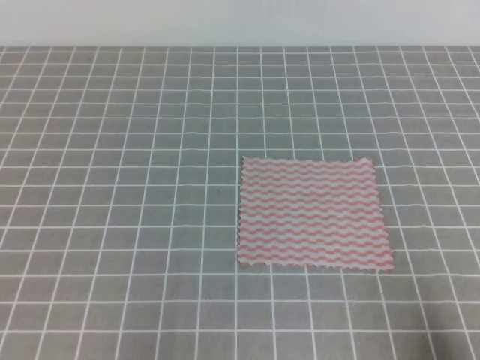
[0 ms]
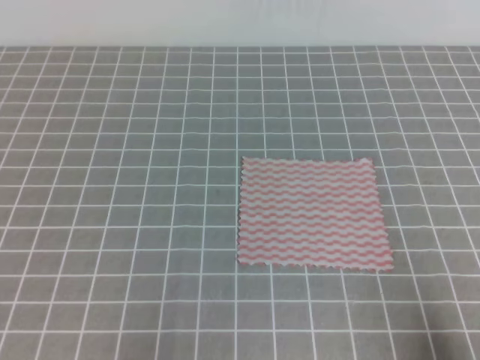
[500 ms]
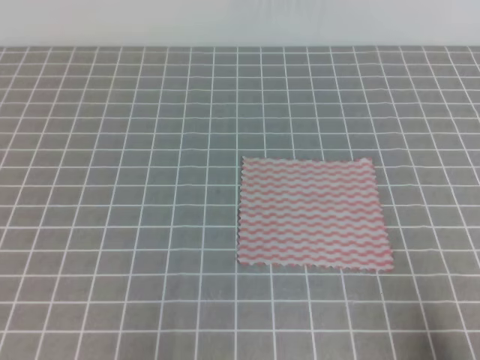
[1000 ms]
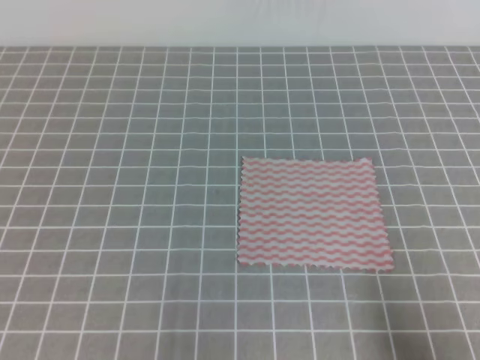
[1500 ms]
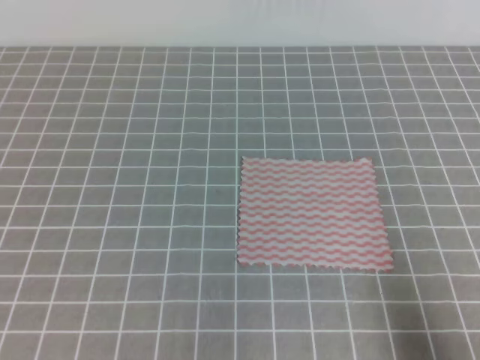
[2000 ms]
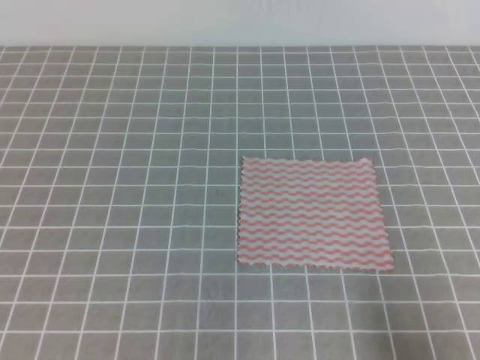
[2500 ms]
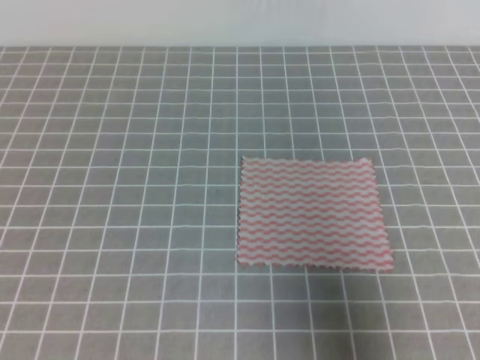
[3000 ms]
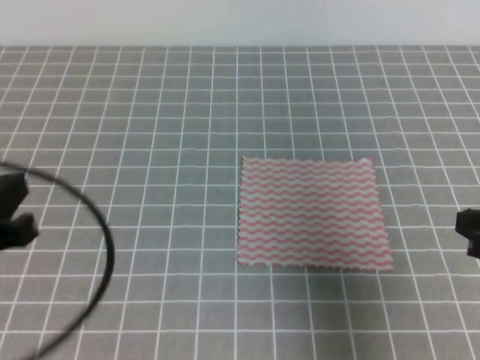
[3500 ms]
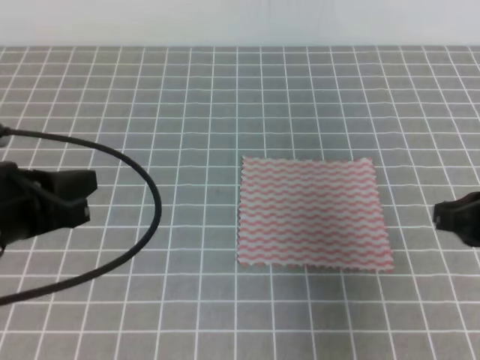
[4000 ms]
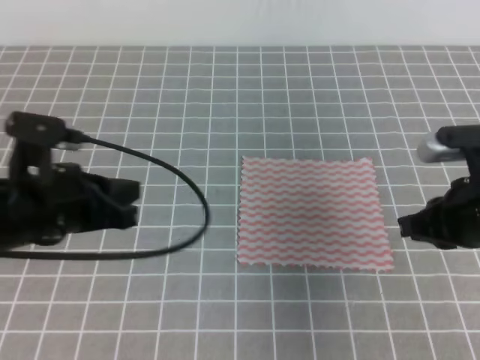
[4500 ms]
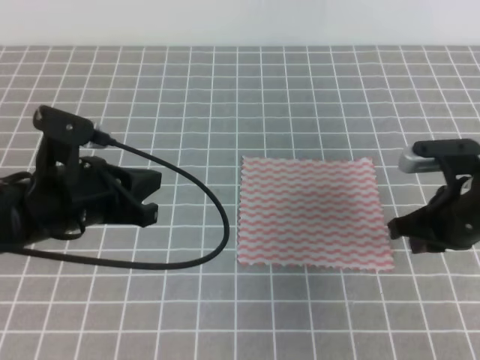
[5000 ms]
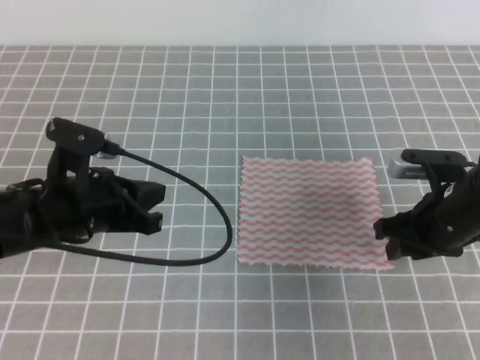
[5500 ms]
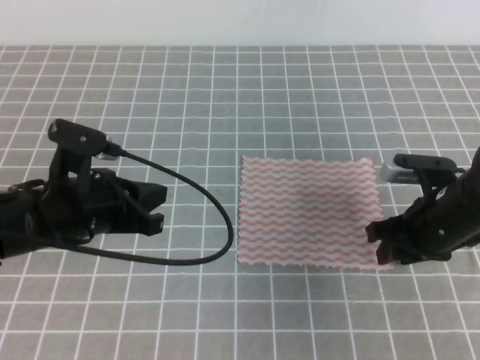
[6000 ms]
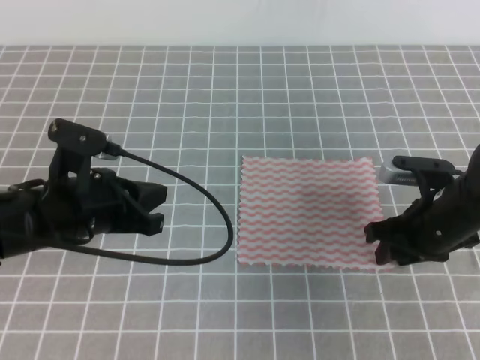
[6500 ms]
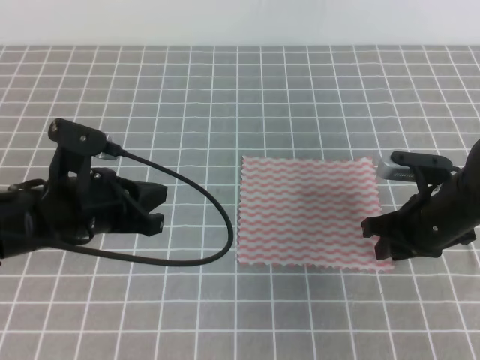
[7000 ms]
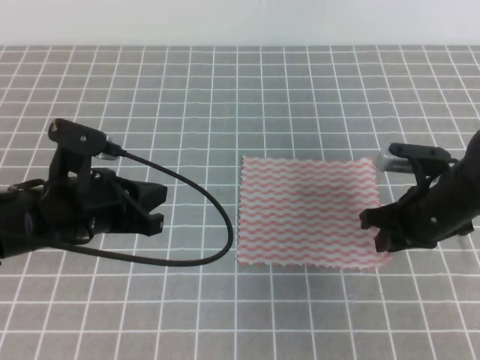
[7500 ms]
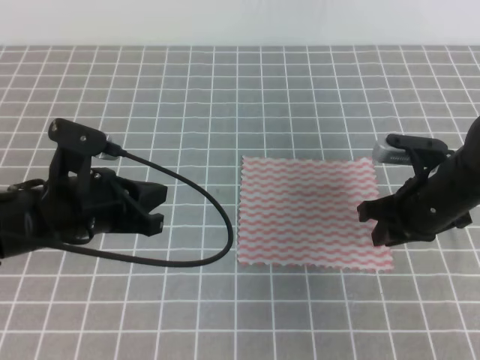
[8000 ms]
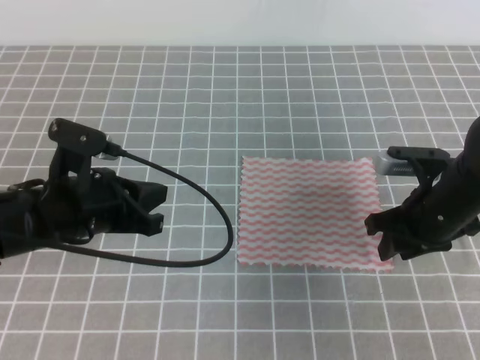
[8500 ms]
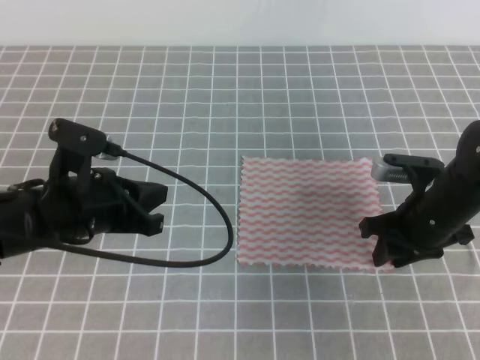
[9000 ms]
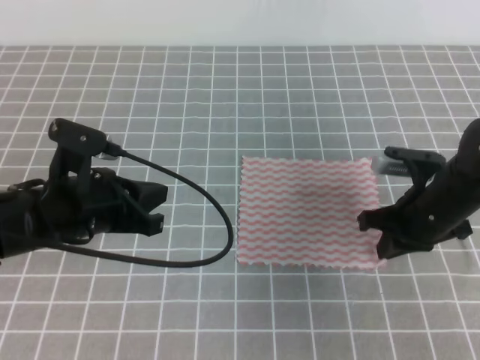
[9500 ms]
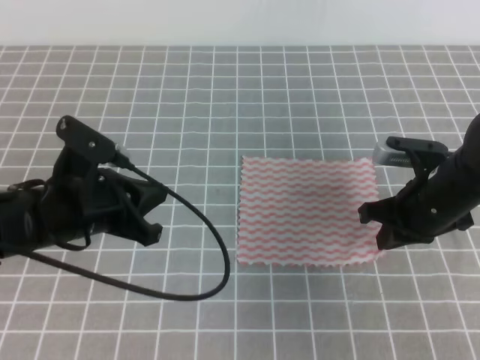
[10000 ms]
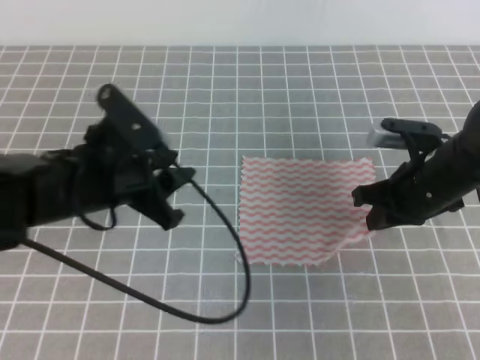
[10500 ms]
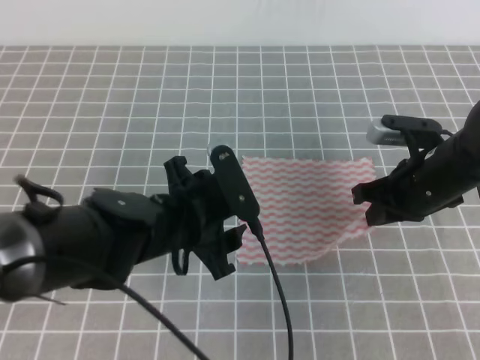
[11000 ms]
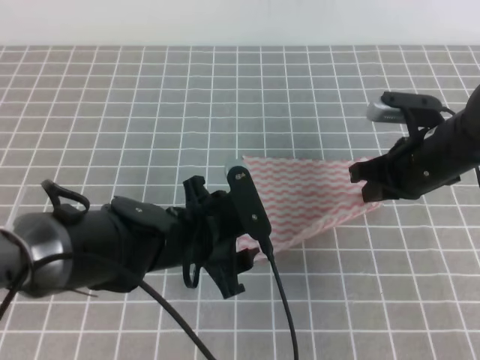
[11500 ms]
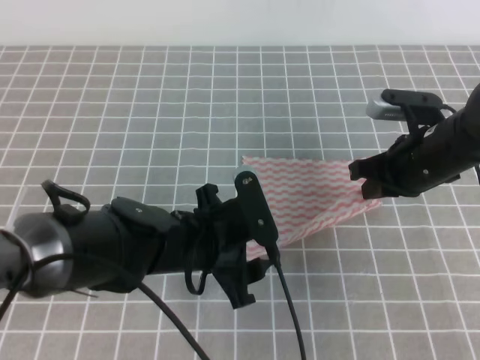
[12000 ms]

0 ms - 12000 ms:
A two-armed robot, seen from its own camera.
2000 ms - 4000 ms: The left gripper moves forward and upward, some 15 cm. Meanwhile the right gripper shifts some 15 cm forward.
4000 ms - 6000 ms: The right gripper is displaced forward and downward by roughly 10 cm, and opens. The left gripper shifts roughly 10 cm downward, forward and to the right.
6000 ms - 8000 ms: The right gripper closes.
8000 ms - 10000 ms: The right gripper closes up.
10000 ms - 12000 ms: The left gripper heads to the right, covering approximately 10 cm, and opens.

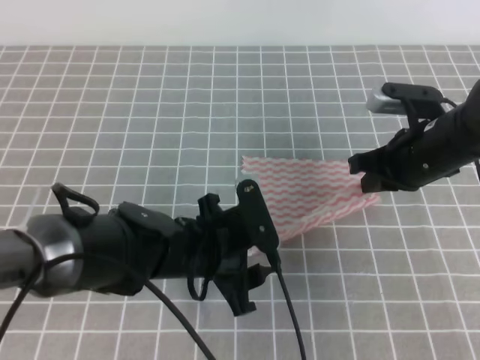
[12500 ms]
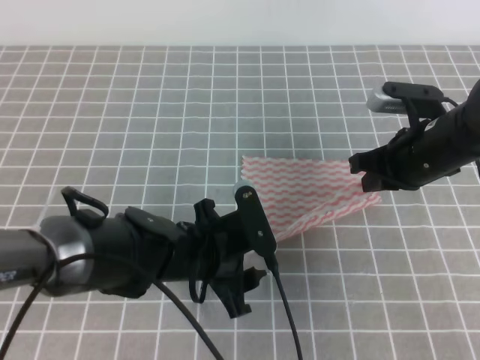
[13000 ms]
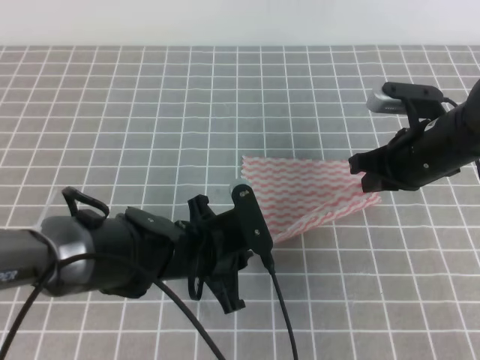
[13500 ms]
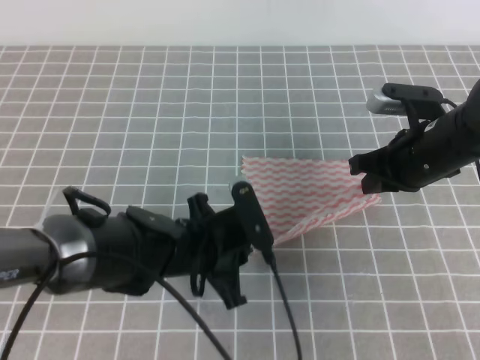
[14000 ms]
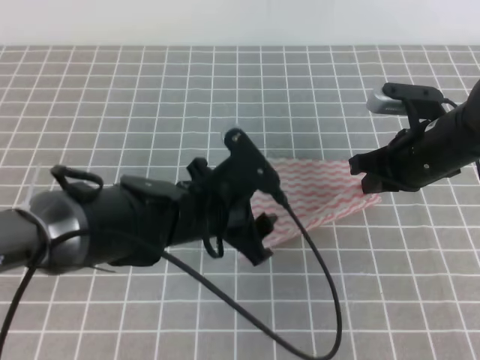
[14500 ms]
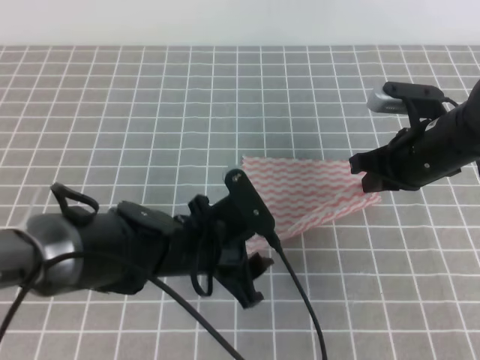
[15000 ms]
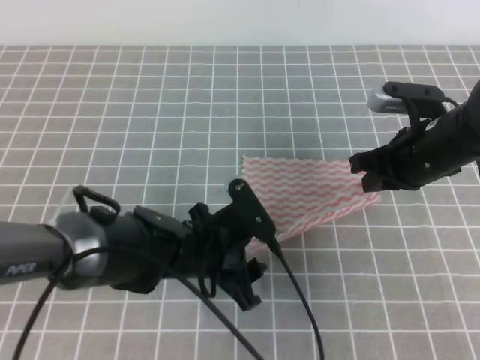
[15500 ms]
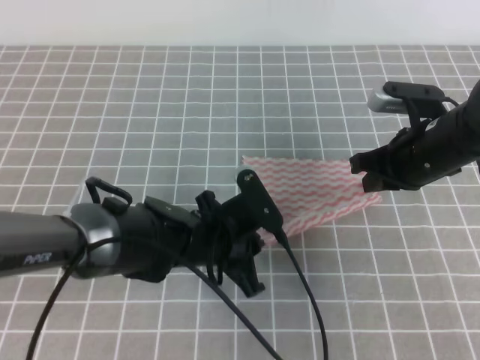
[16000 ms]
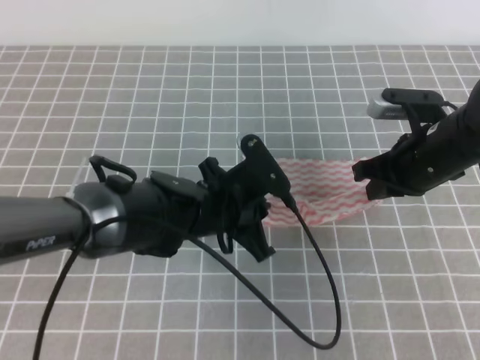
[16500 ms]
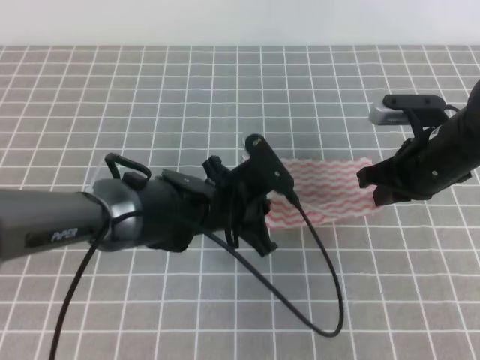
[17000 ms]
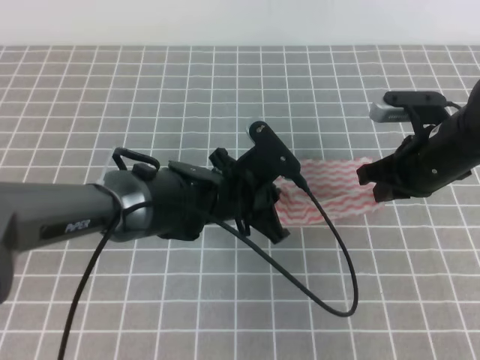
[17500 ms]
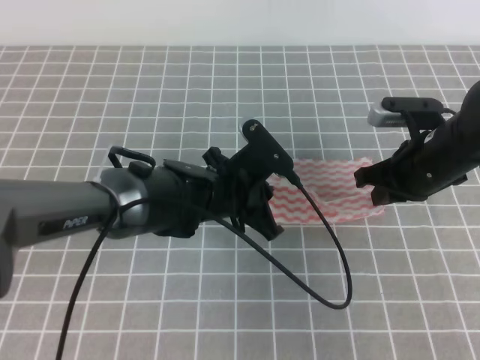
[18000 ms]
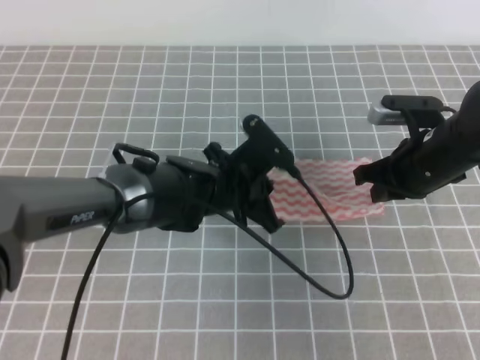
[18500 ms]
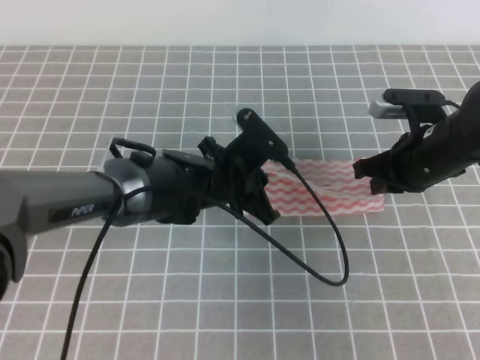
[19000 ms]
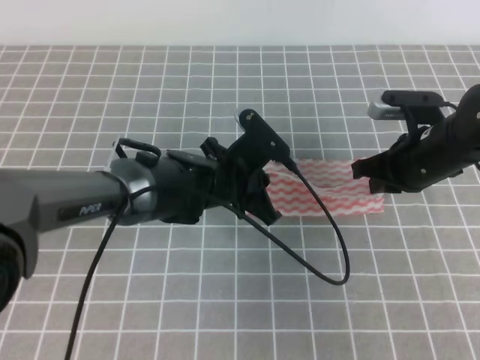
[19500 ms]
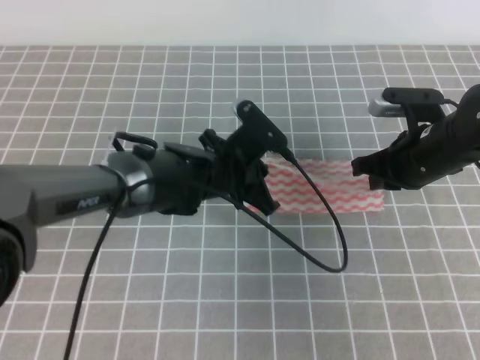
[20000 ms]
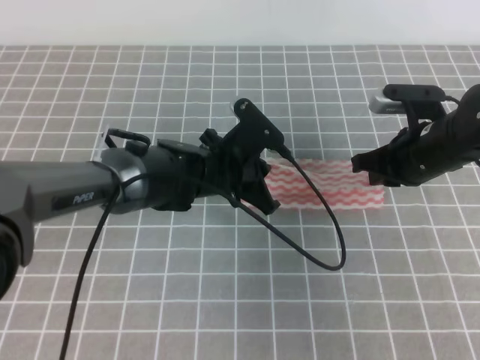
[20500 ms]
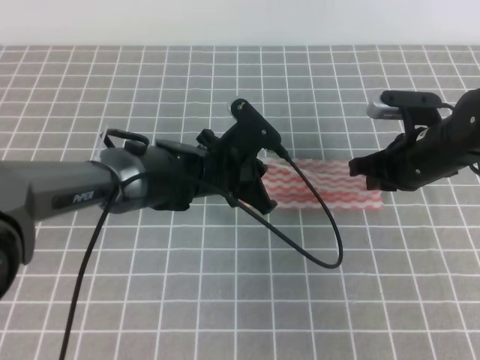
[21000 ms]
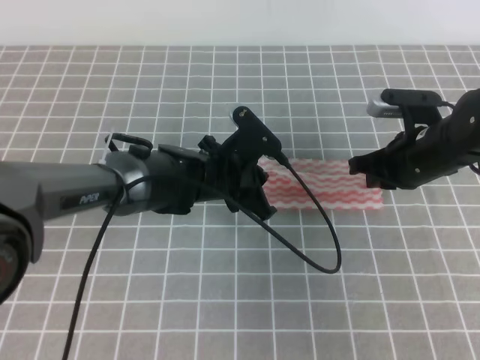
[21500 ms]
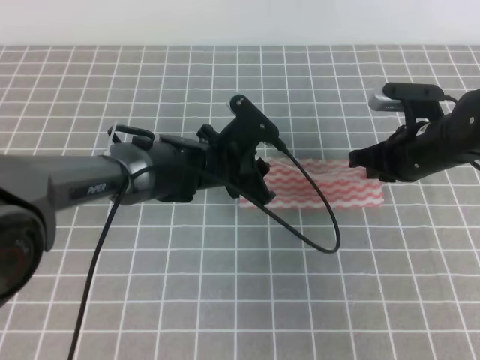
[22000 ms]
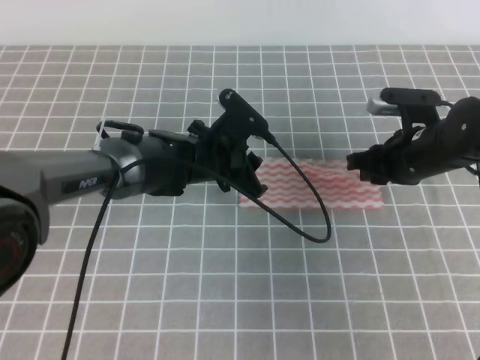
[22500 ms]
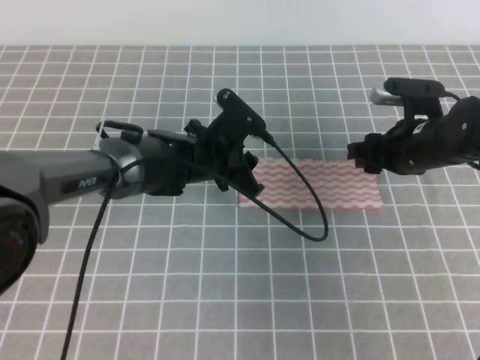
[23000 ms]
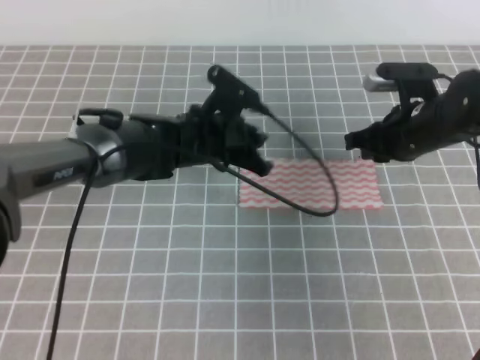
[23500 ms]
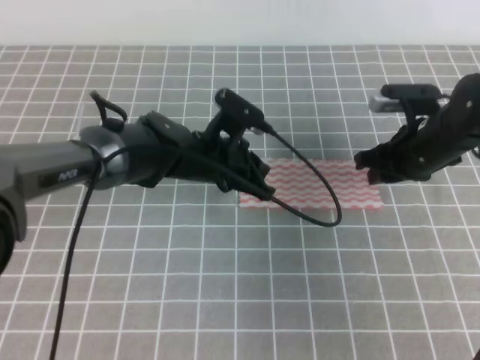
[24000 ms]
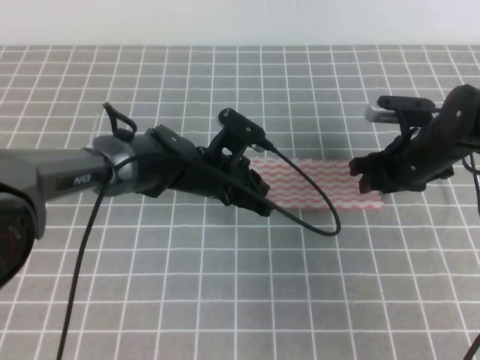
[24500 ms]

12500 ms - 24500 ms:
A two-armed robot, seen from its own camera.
Step, 14500 ms - 17500 ms: Fold the towel from right to left with the right gripper.
Step, 18000 ms - 19500 ms: Tidy up the towels.
12500 ms - 14500 ms: The left gripper closes and opens again.
14500 ms - 16500 ms: The left gripper closes up.
16500 ms - 18500 ms: There are only small adjustments of the grippers.
18500 ms - 20500 ms: There are only small adjustments of the grippers.
20500 ms - 22500 ms: The left gripper opens up. The right gripper opens.
22500 ms - 24500 ms: The left gripper closes its fingers. The right gripper opens its fingers.

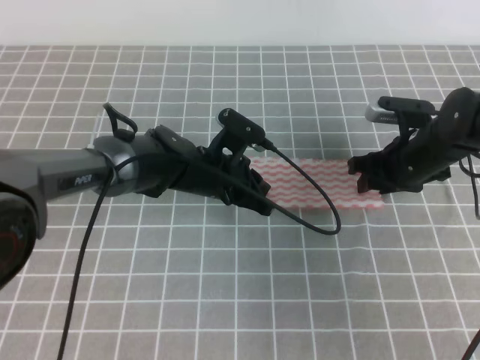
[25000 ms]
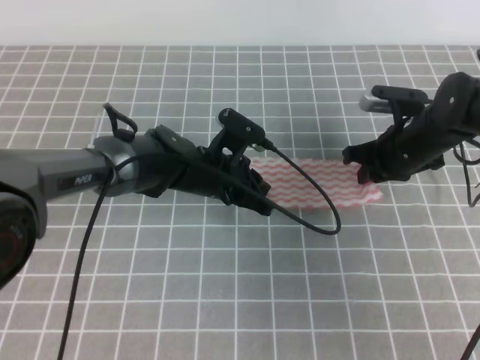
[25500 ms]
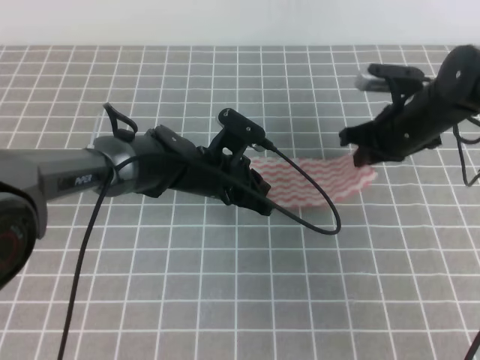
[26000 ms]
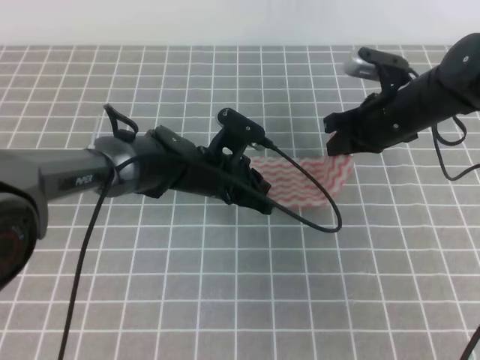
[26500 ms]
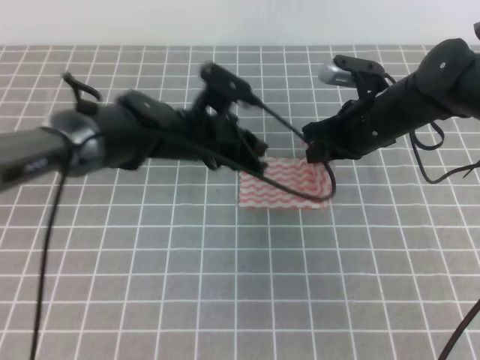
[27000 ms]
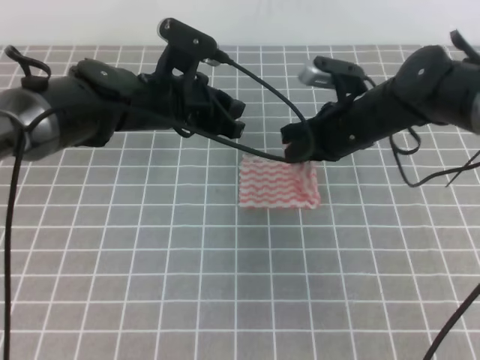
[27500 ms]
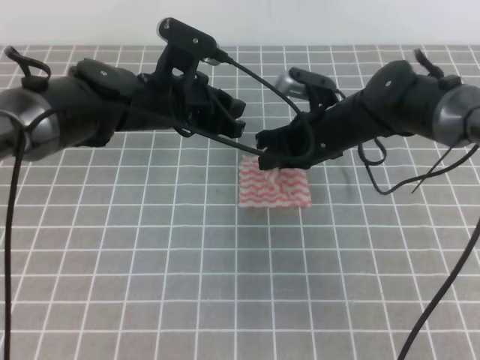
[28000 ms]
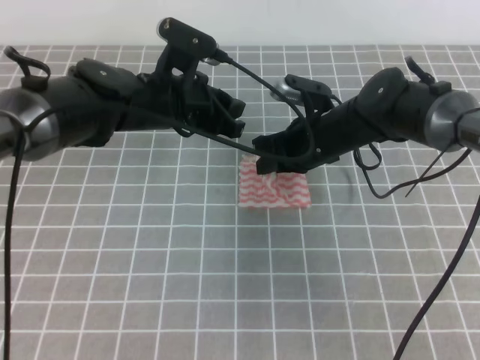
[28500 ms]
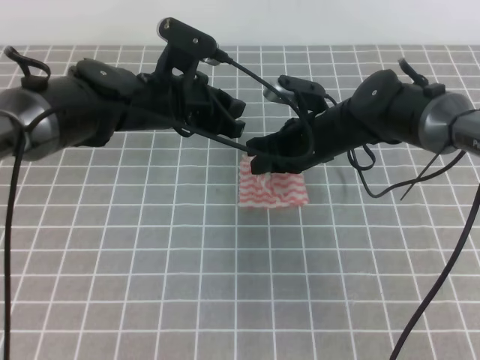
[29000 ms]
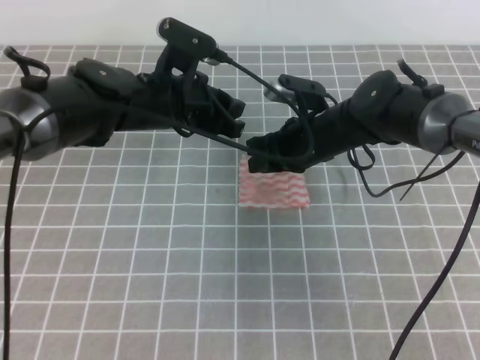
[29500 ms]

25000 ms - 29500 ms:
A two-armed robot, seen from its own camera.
25000 ms - 27000 ms: The left gripper moves upward, about 5 cm, and opens up. The right gripper moves upward and to the left, roughly 10 cm, and closes.
27000 ms - 29500 ms: The right gripper travels to the left by some 5 cm, and opens its fingers; the left gripper moves some 5 cm.
